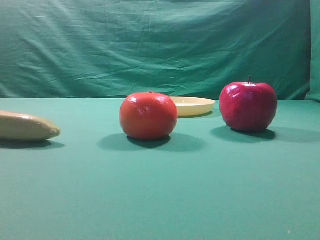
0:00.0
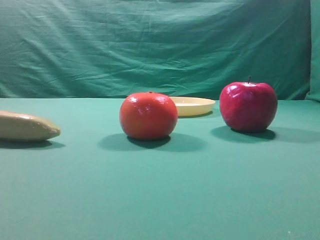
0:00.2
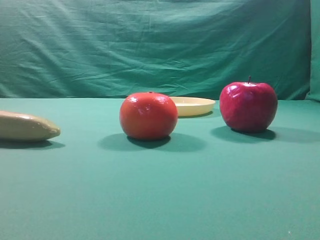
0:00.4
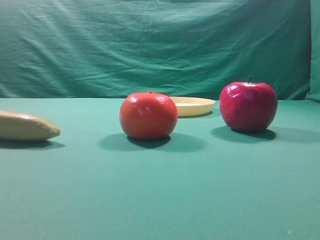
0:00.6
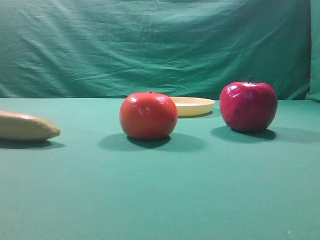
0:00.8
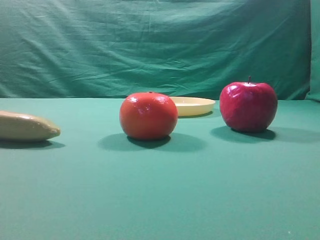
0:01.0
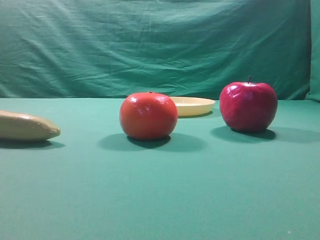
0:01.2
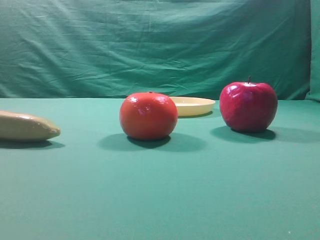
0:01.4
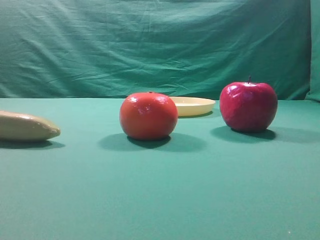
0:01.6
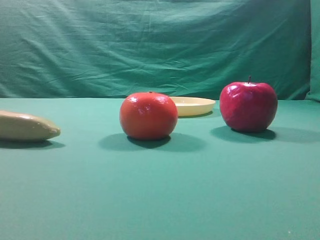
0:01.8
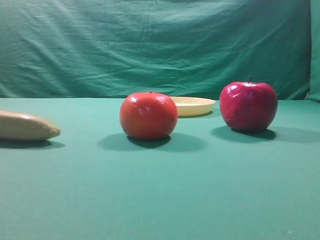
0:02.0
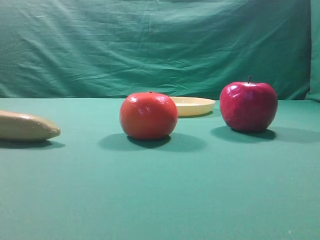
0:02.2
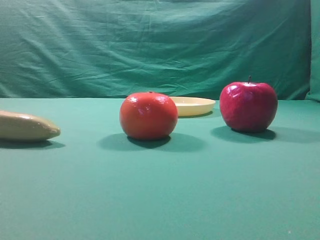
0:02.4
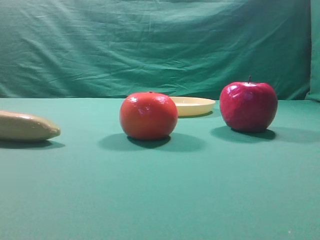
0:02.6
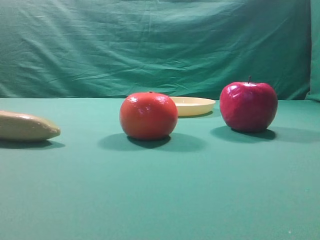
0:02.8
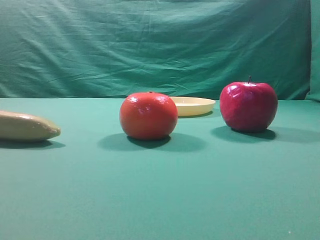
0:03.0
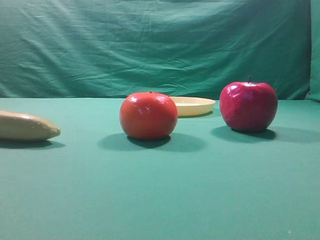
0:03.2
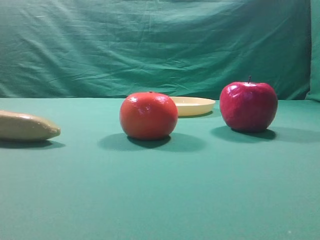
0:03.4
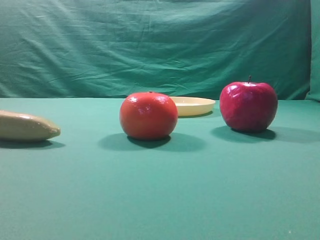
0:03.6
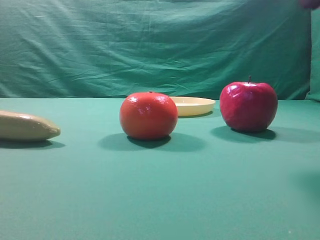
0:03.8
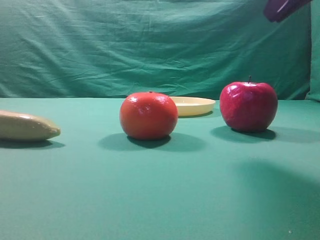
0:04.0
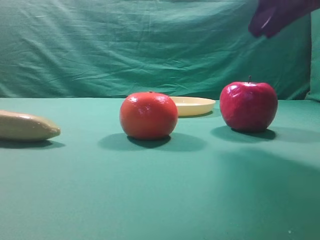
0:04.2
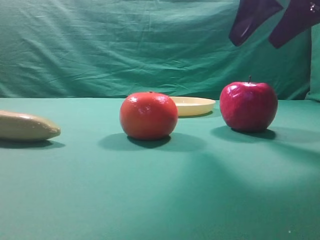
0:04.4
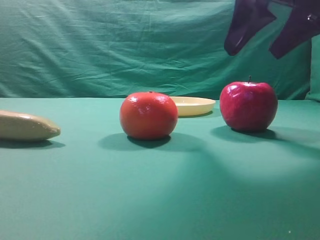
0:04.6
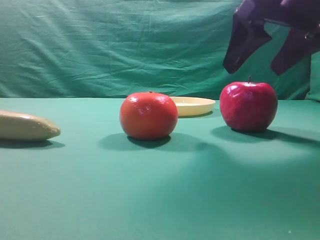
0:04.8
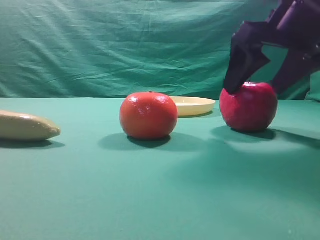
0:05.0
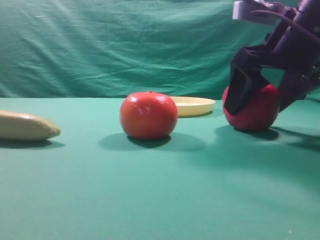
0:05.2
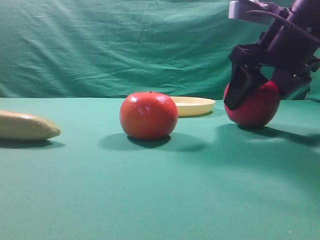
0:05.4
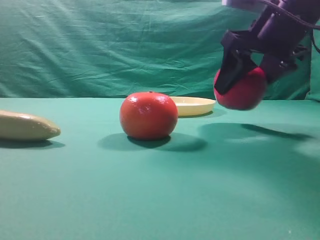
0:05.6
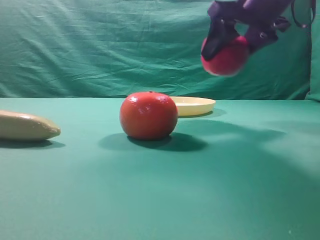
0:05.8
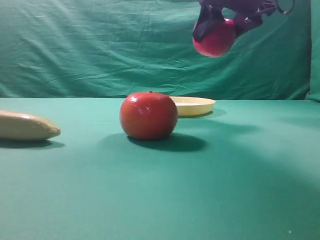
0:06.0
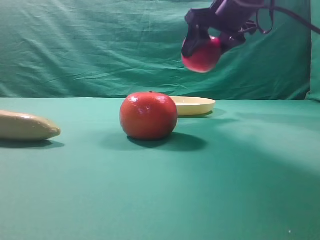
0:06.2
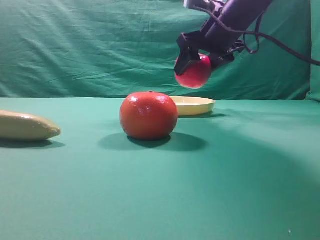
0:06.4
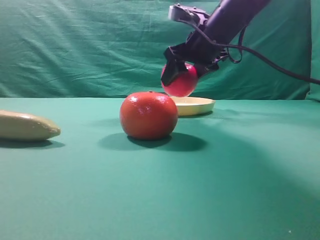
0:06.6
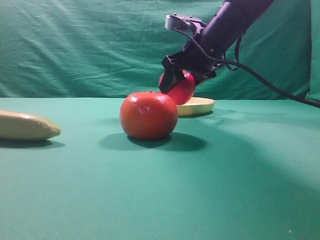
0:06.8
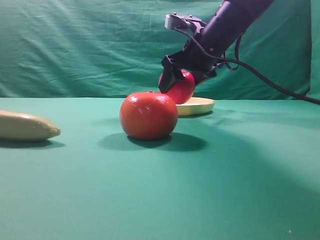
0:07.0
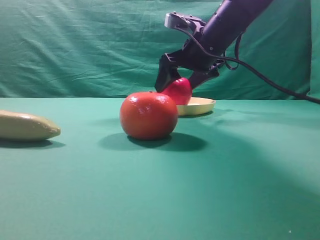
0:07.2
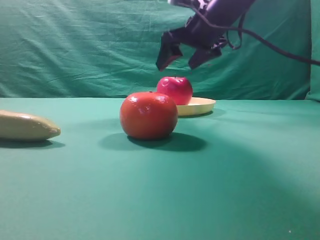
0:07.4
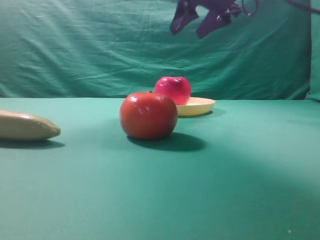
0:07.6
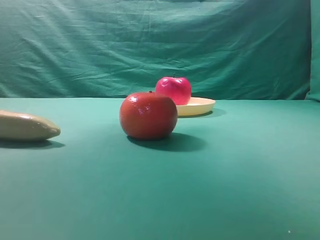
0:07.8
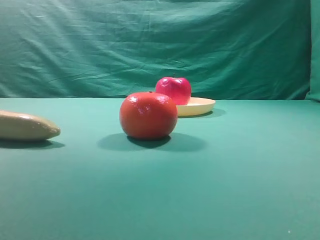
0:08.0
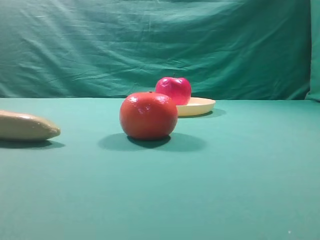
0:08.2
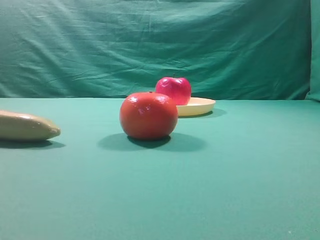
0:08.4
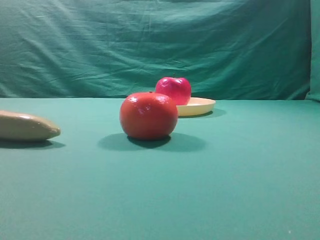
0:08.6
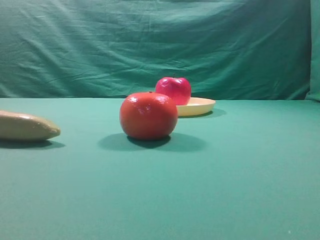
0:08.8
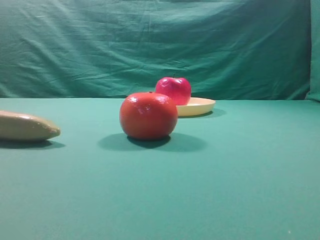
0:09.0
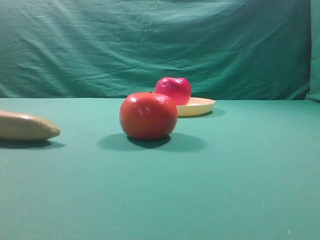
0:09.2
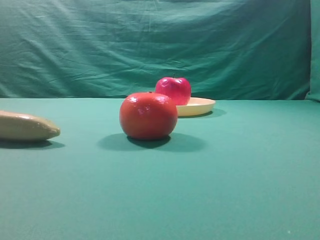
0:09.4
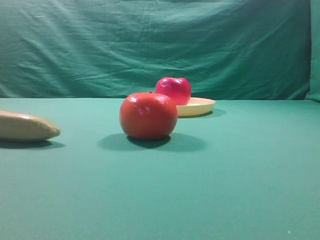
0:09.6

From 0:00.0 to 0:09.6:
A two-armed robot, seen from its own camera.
Task of the whole recording: grasp the apple and place it into the yellow plate.
Step, from 0:00.0 to 0:05.4: Grasp the fruit that can keep the doctor away.
Step, from 0:05.8 to 0:07.2: Place the picked object into the yellow plate.

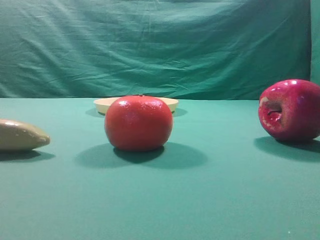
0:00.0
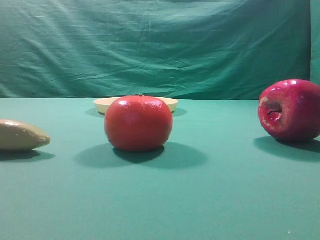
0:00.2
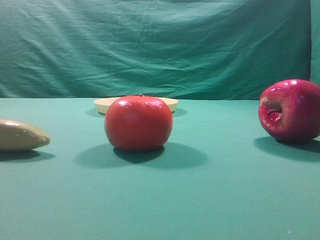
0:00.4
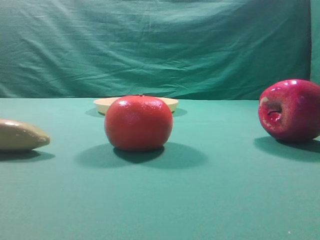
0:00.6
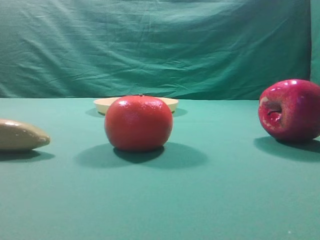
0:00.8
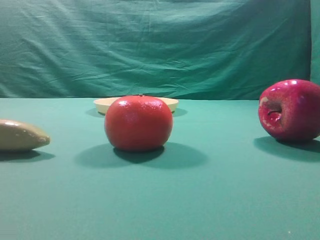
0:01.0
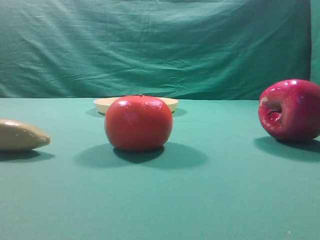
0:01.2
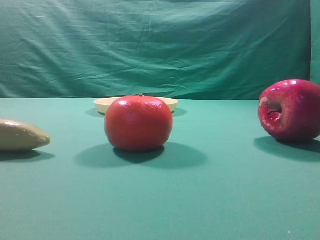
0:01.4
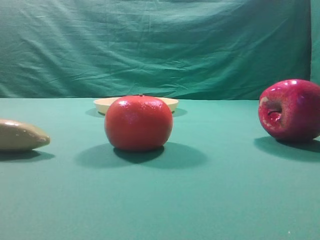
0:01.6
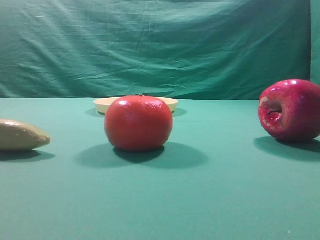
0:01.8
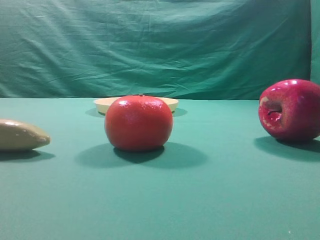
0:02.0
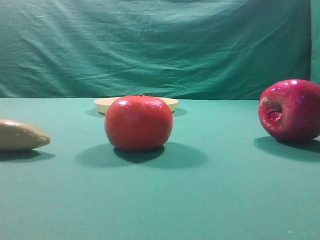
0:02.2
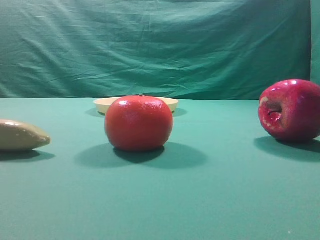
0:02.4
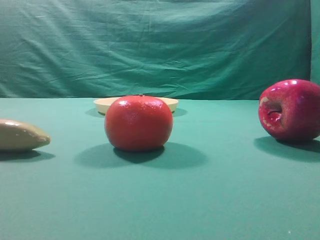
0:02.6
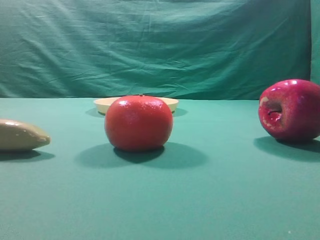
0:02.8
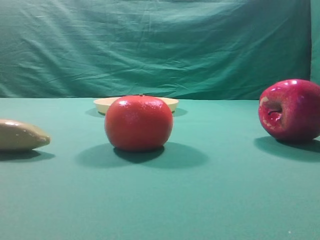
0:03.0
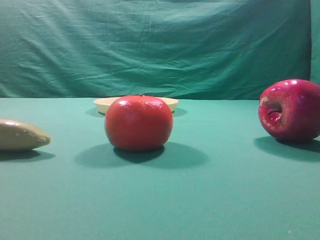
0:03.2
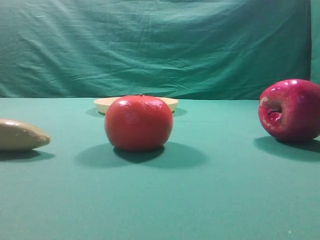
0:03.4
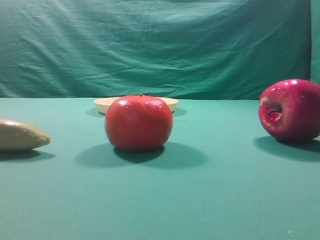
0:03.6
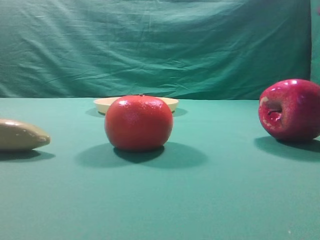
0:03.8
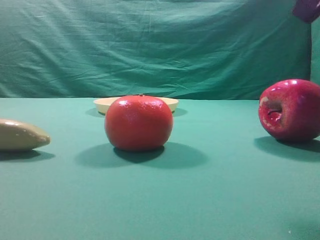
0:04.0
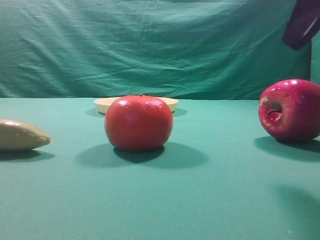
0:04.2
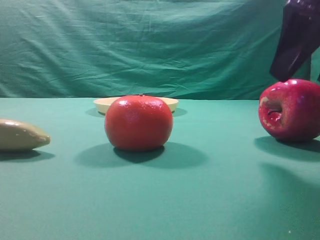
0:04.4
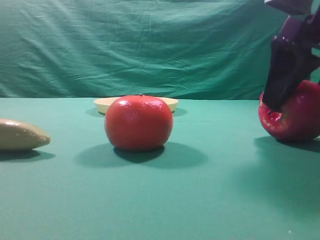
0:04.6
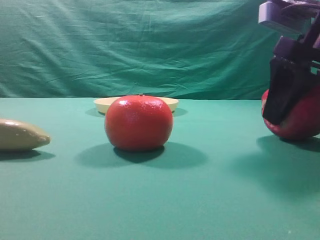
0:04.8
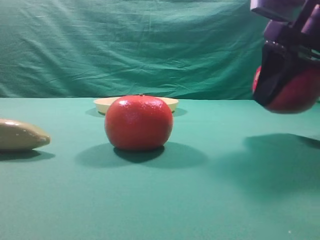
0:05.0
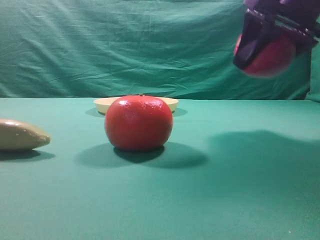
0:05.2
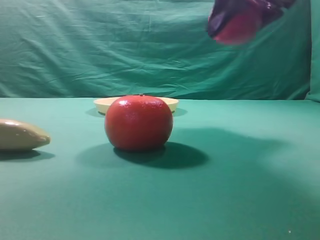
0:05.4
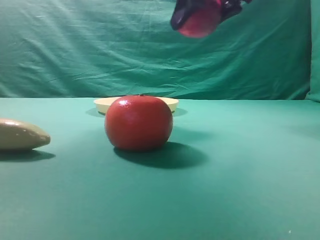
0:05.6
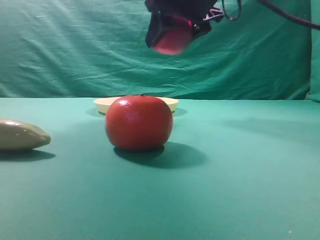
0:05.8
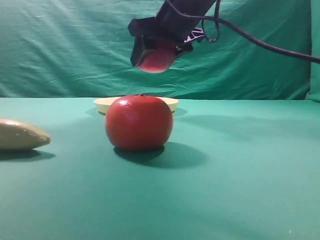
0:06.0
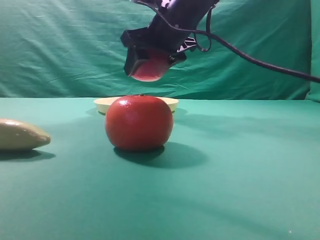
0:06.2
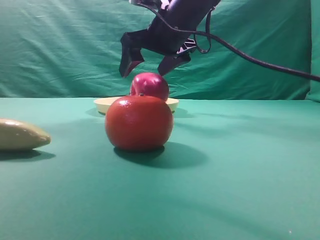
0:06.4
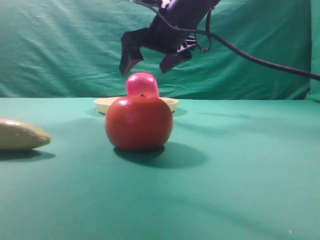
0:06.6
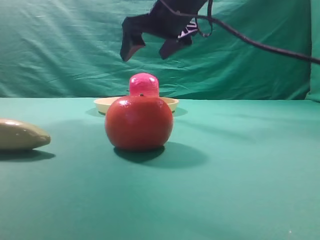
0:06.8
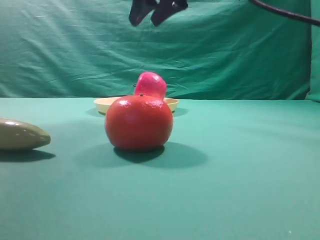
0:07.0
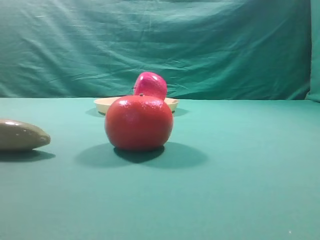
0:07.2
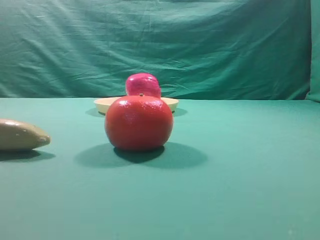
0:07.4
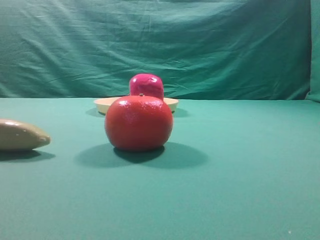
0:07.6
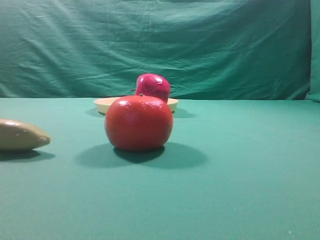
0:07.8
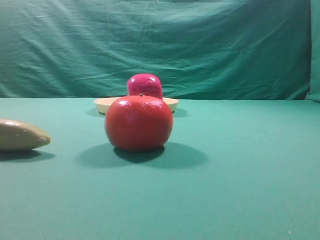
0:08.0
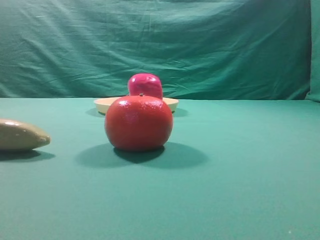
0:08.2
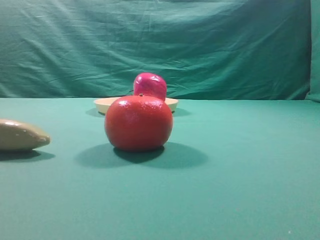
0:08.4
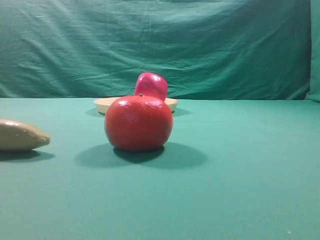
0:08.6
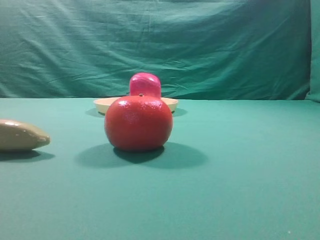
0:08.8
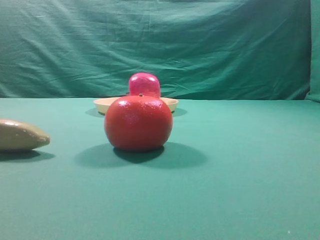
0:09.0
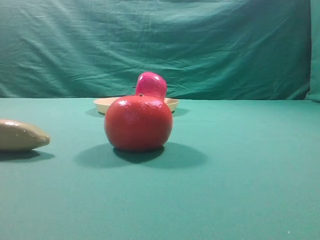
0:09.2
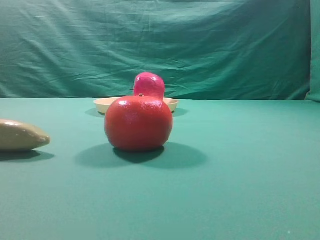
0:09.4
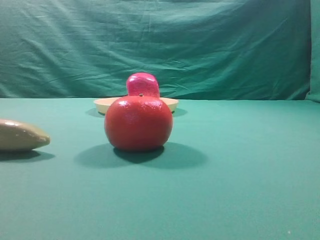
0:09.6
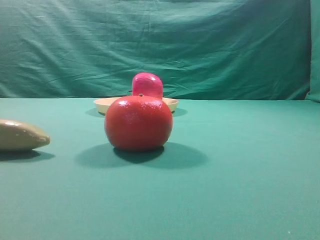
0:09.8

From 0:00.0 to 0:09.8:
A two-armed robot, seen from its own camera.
Task of the whole recording: grasp the apple and place it into the yellow plate.
Step, from 0:00.0 to 0:05.0: Grasp the fruit that can keep the doctor away.
Step, from 0:05.2 to 0:06.8: Place the picked object into the yellow plate.
